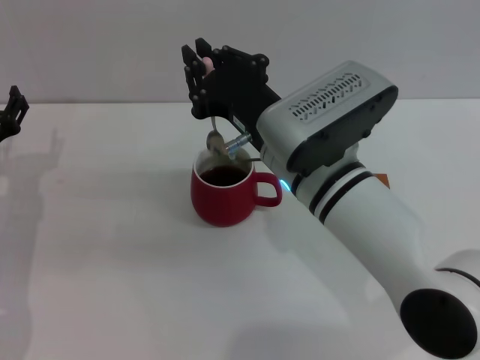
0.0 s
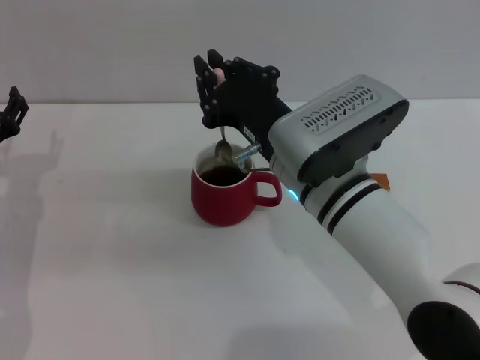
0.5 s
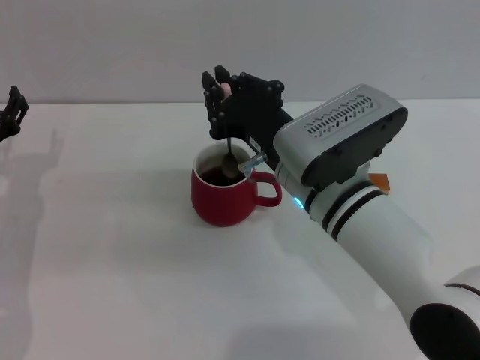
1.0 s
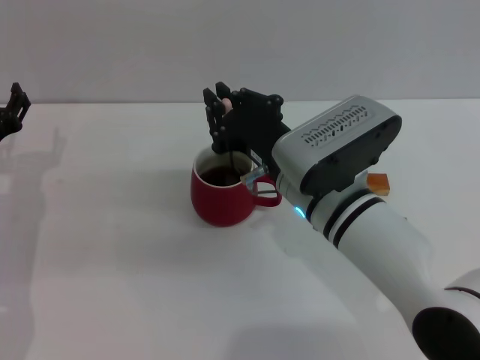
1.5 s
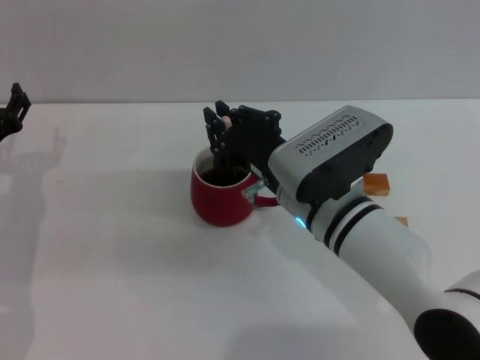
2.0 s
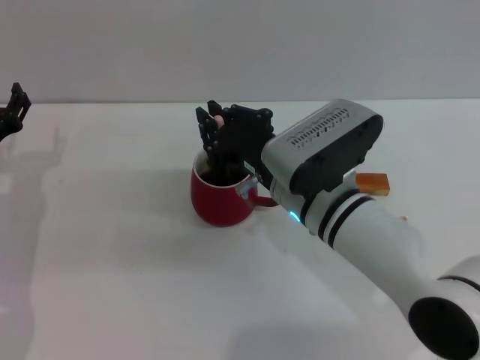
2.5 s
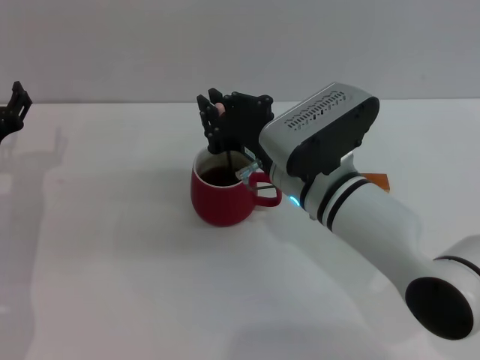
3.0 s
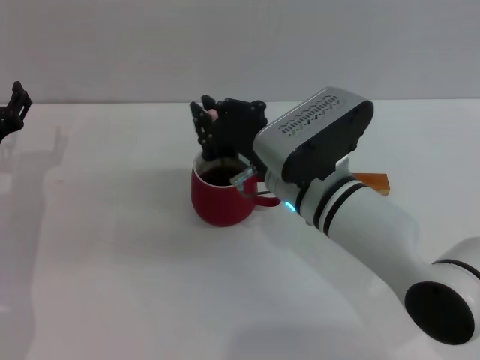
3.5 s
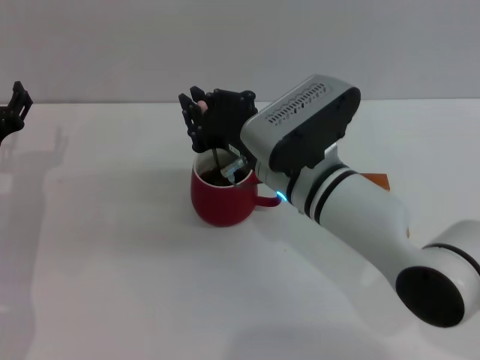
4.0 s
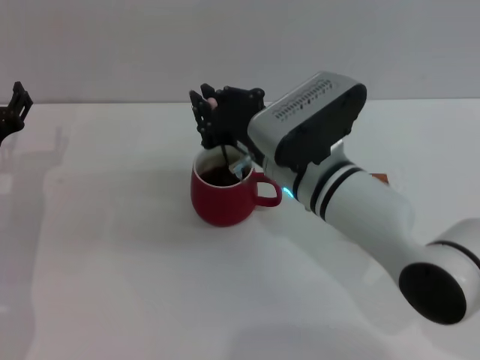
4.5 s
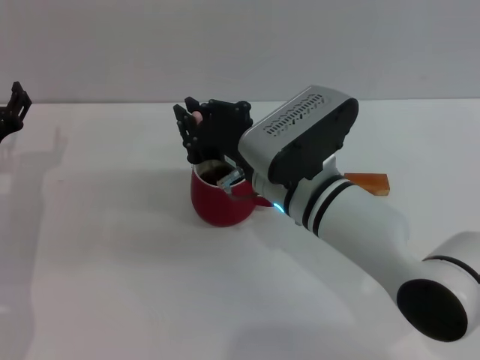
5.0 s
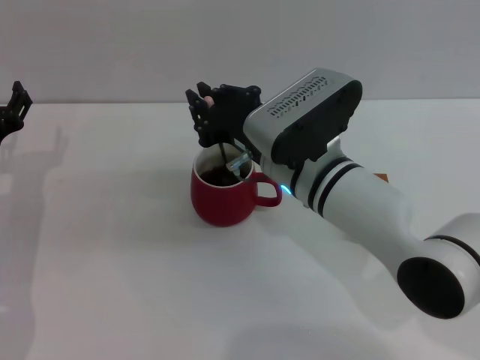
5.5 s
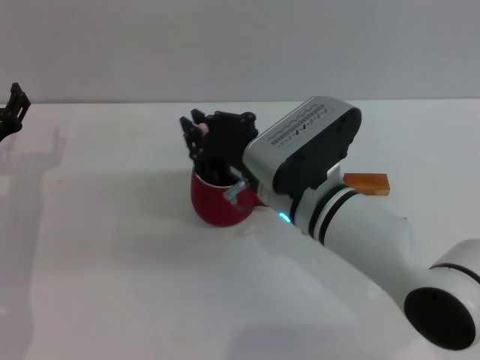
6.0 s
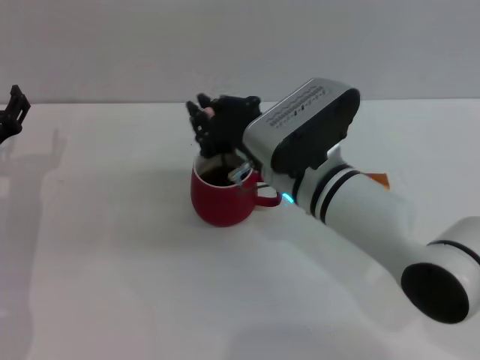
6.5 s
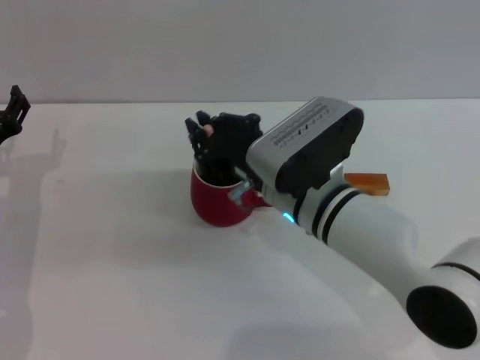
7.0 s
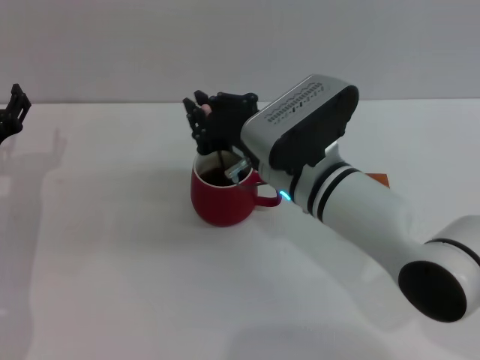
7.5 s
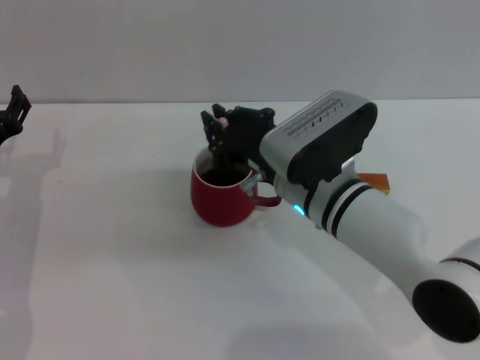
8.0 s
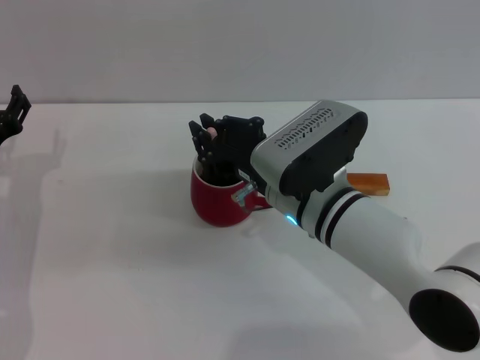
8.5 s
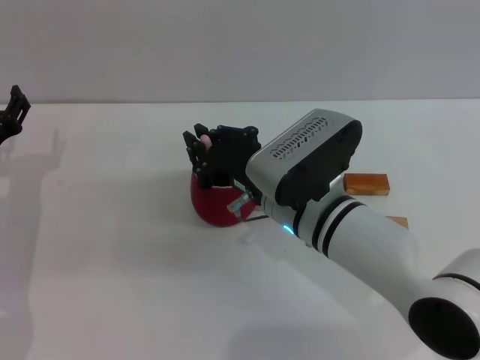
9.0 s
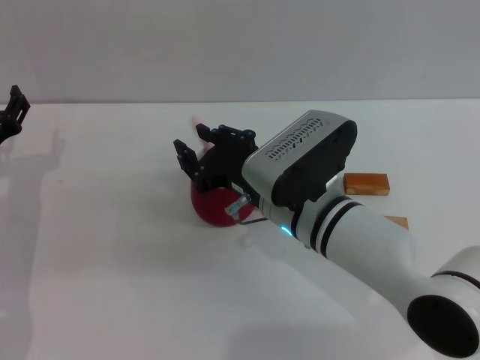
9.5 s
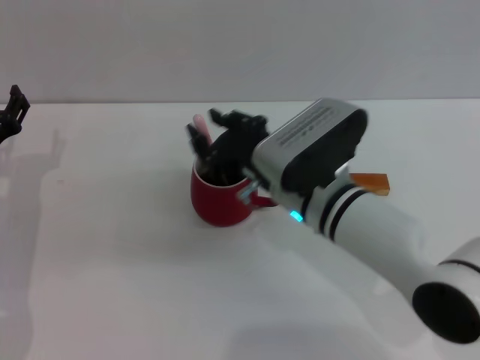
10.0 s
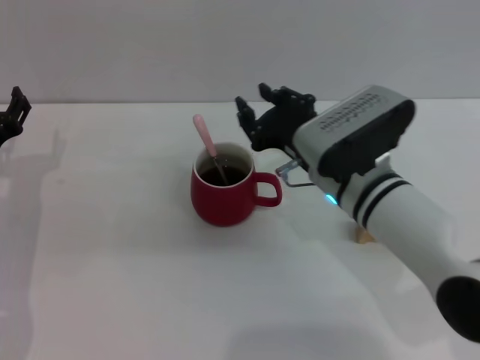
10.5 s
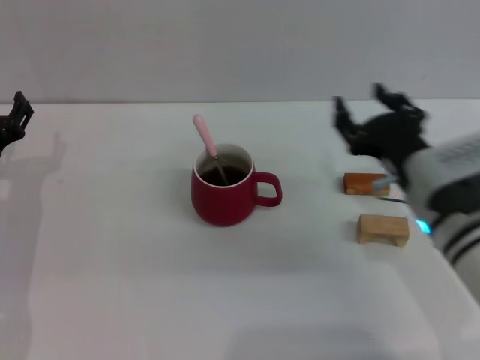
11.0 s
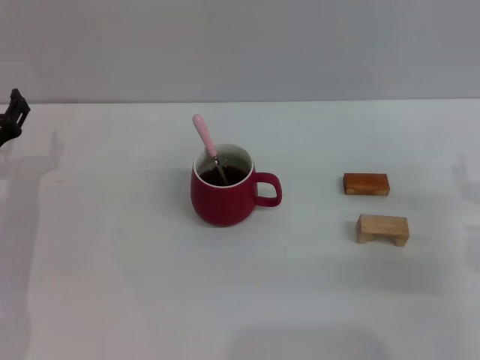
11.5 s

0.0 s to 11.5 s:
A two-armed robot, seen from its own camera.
Task of the whole recording: Move the red cup to the center, lift the pink spoon, stir it three times in the cup, and put the spoon into the cup.
Step, 0.0 to 10.0 s: Stir the coffee in the cup with the right gripper.
0.0 to 9.5 s: The grippers make only small movements.
9.5 to 11.5 s: The right gripper heads to the right, covering some 25 cm, and opens.

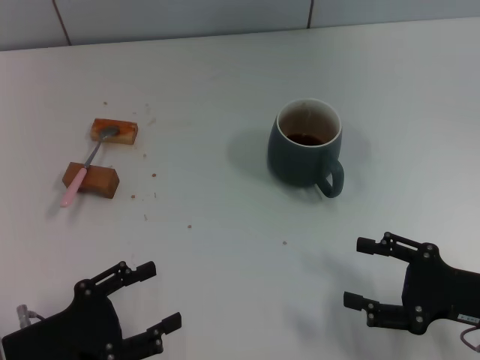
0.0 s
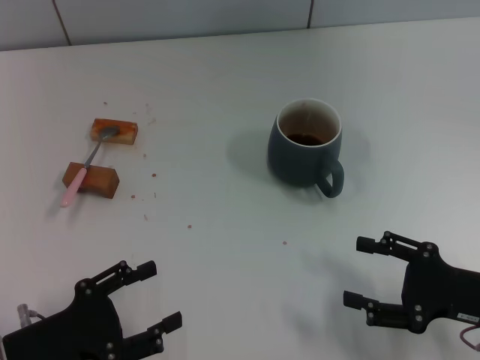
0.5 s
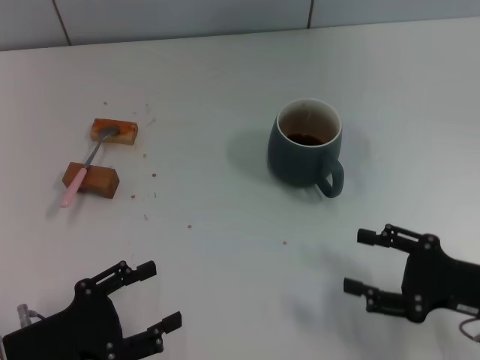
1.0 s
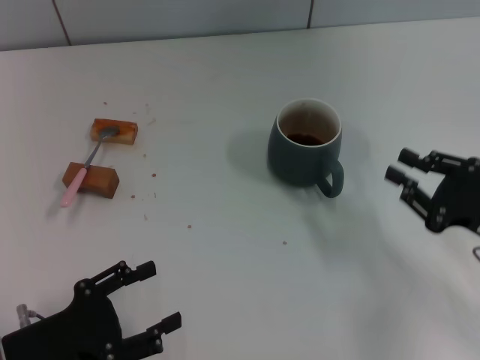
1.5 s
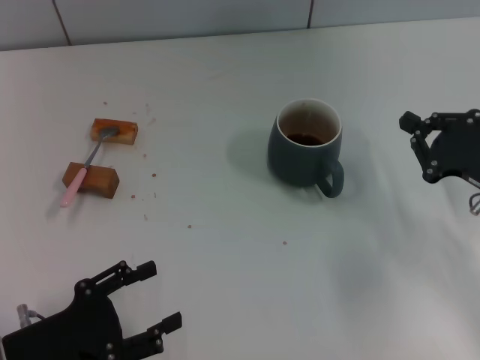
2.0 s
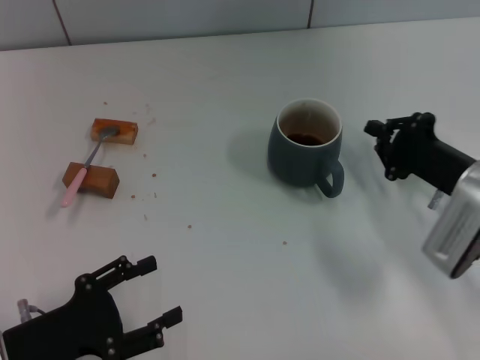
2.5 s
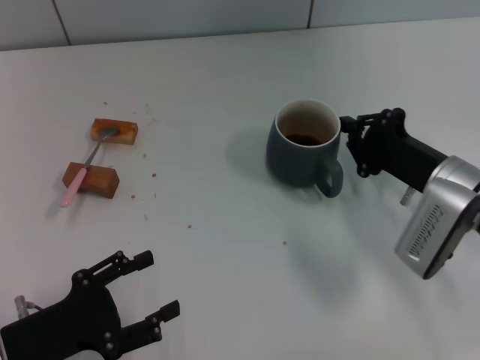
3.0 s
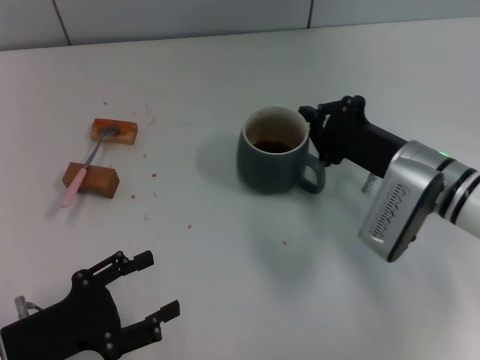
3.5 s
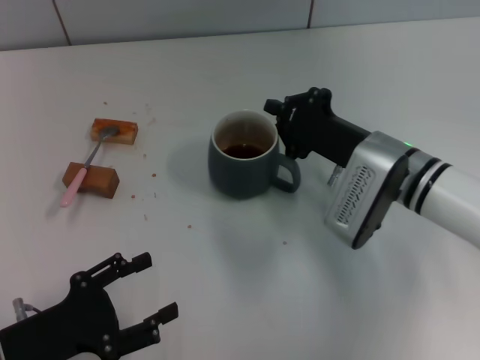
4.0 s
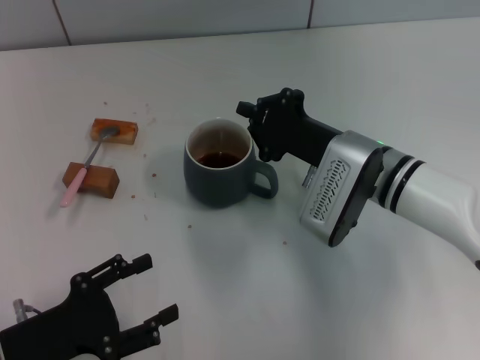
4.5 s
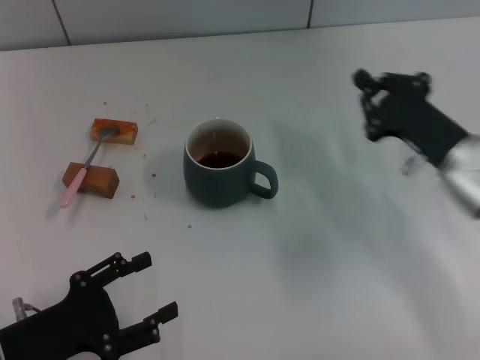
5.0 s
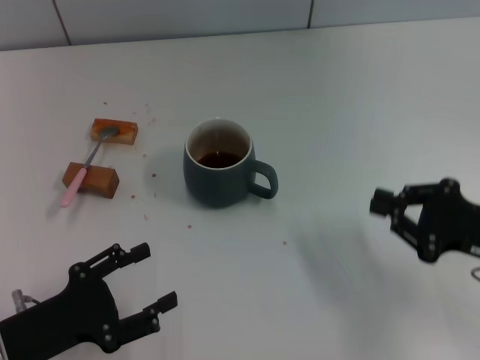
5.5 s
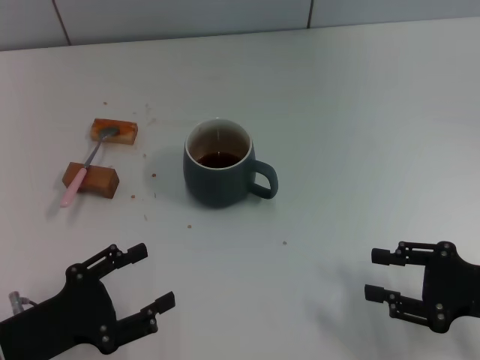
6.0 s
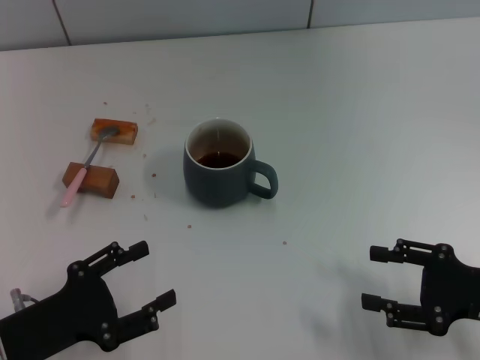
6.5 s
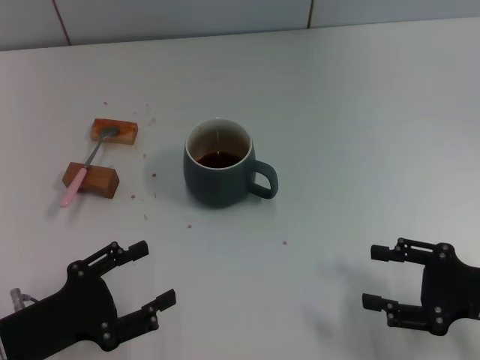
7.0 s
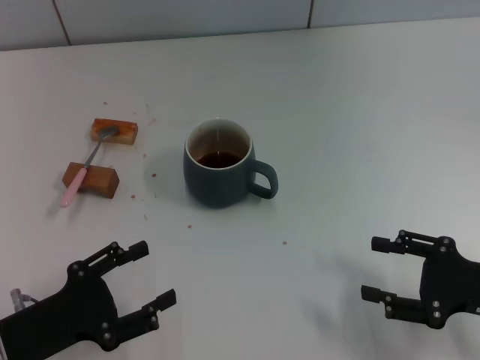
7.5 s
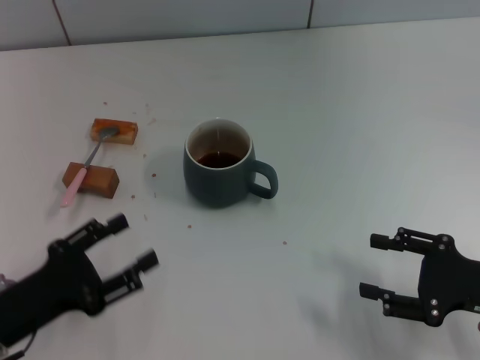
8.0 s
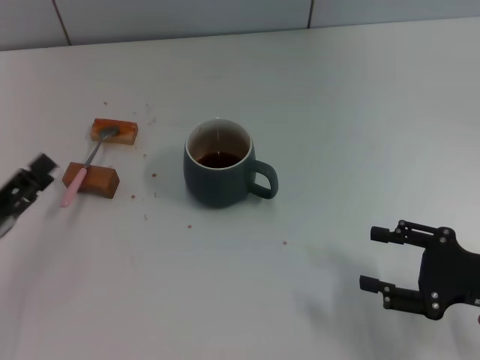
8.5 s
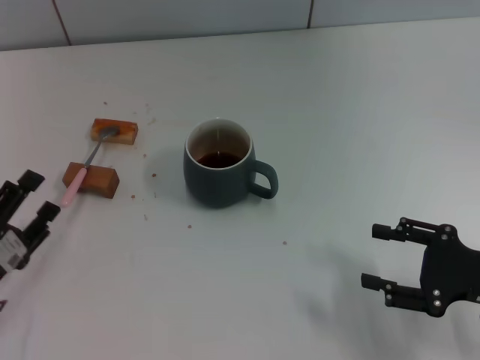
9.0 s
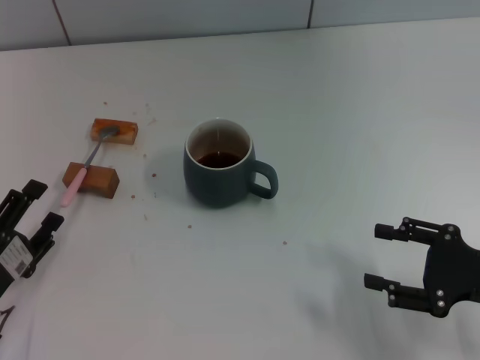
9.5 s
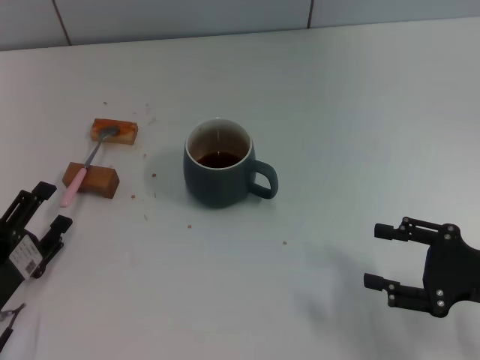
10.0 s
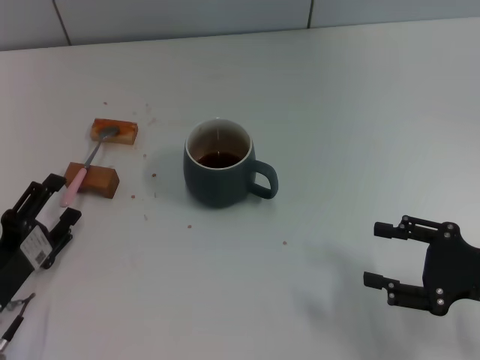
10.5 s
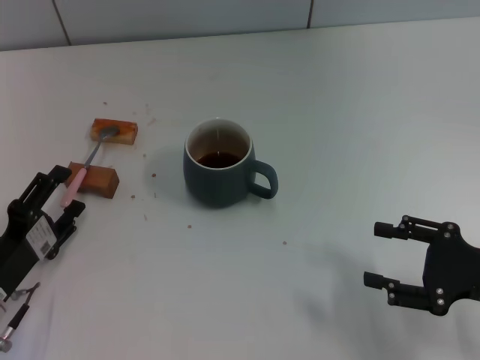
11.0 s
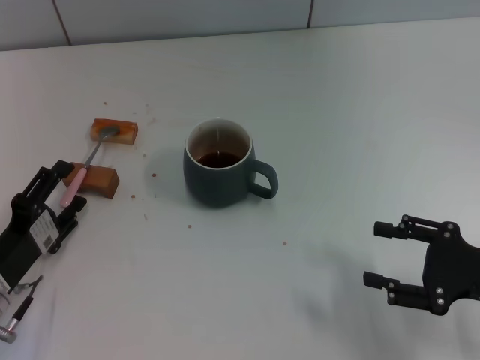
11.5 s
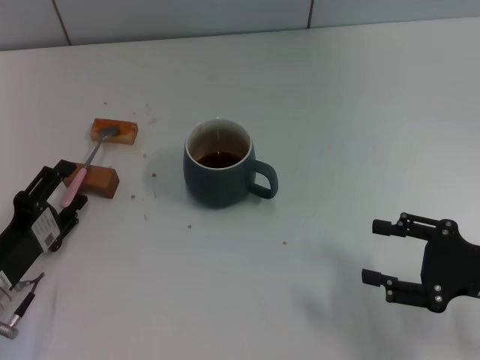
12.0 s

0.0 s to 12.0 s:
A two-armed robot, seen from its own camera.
Task of the whole recording: Move the grey cup to the center, lift the pink spoon, stir it three times in the cup, and put the spoon into the cup.
Step, 0.0 to 4.0 s: Move the cup with coffee to the center of view with the right gripper.
0.0 to 2.0 s: The right gripper moves forward, about 10 cm, and closes.
2.0 to 4.0 s: The right gripper shifts about 15 cm to the left and forward.
4.0 to 6.0 s: The right gripper shifts roughly 20 cm to the right and backward, and opens.
6.0 to 8.0 s: The right gripper opens its fingers.
10.0 to 12.0 s: The grippers move only a little.

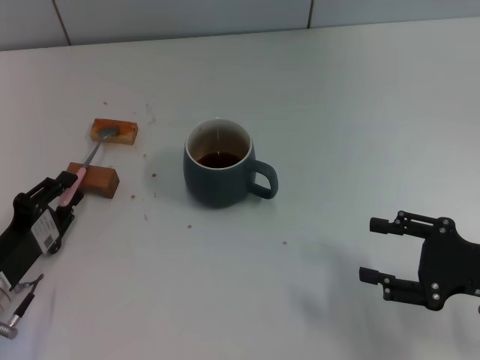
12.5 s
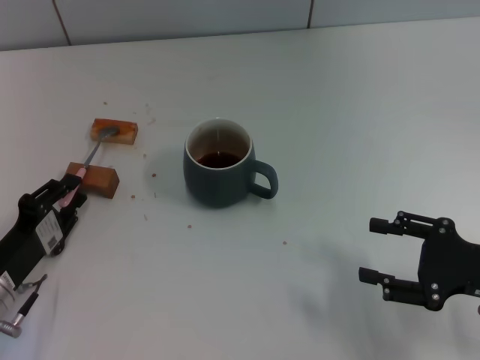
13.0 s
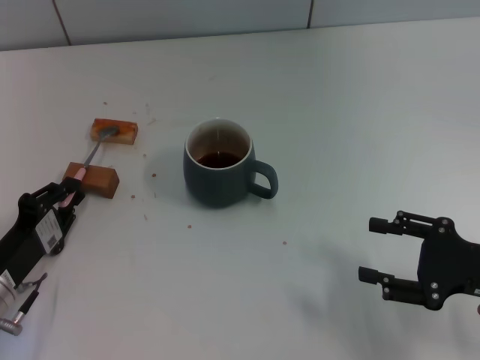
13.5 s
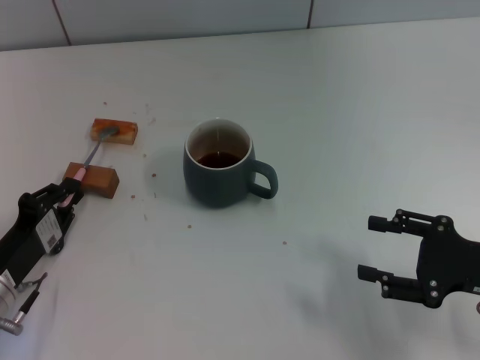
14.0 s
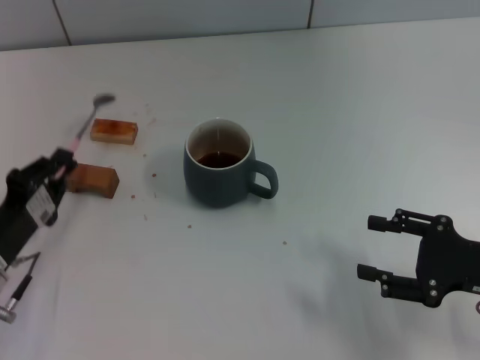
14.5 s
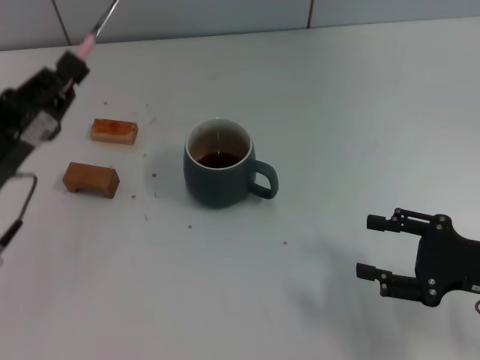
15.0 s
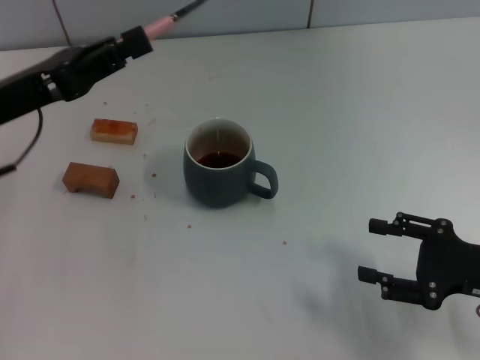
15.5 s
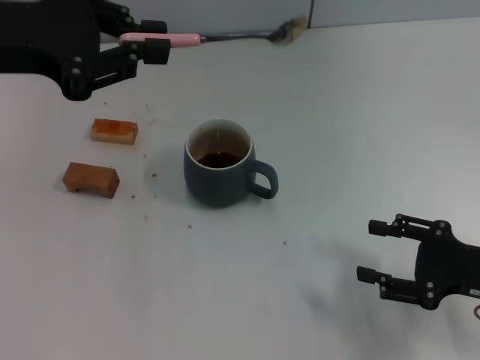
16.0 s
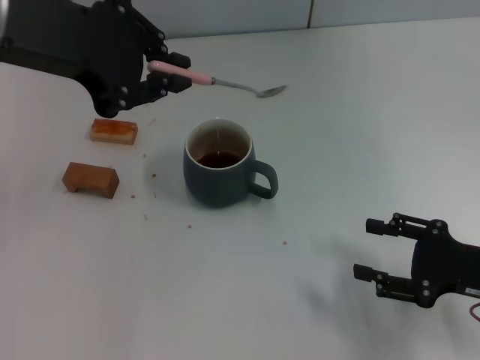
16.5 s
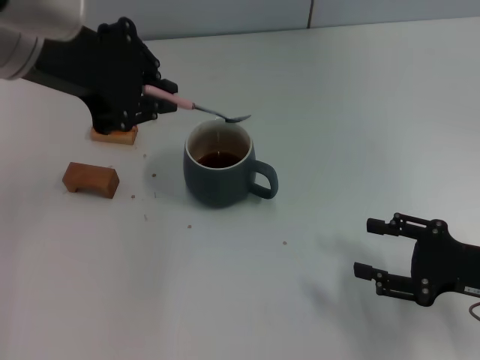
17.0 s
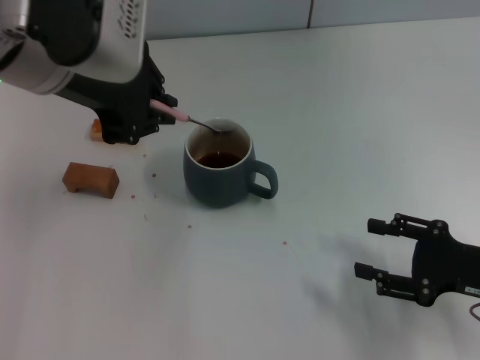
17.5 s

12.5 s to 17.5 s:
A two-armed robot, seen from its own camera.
Task of the whole recording: Move the grey cup to the center, lift the pink spoon, stir it three times in the cup, and put the spoon into the cup.
12.5 to 15.0 s: The left gripper goes approximately 10 cm upward and forward, and closes its fingers.
15.0 to 17.5 s: The left gripper travels upward and to the right by some 20 cm.
